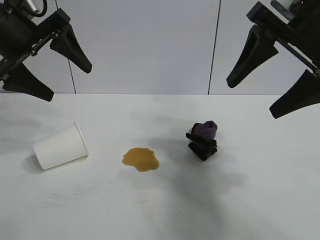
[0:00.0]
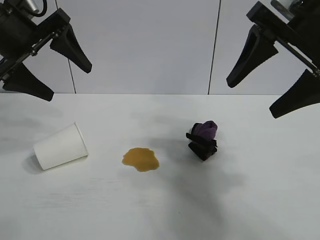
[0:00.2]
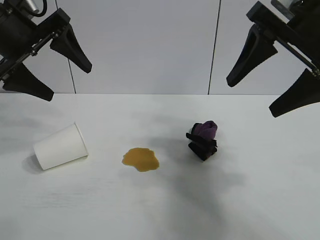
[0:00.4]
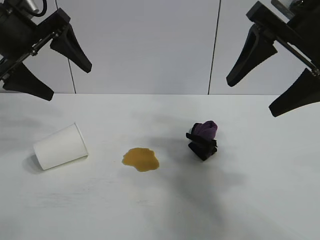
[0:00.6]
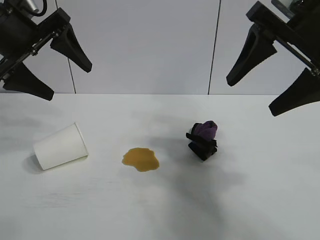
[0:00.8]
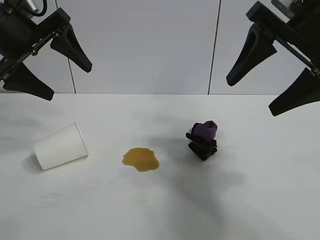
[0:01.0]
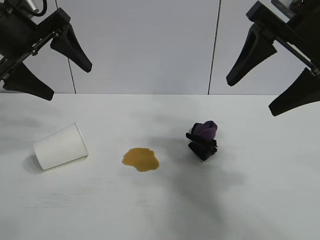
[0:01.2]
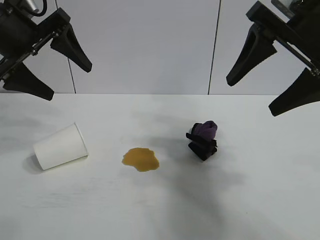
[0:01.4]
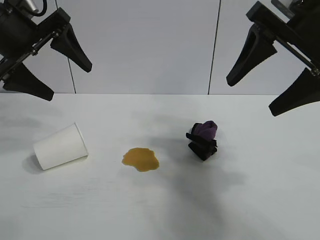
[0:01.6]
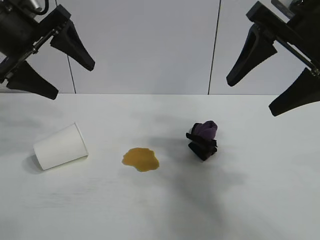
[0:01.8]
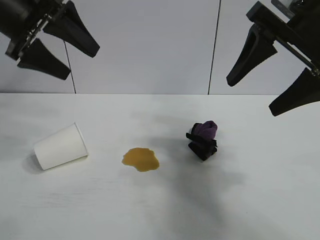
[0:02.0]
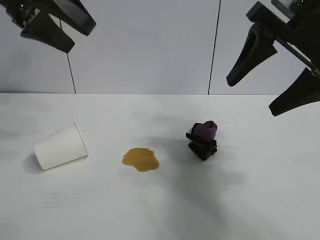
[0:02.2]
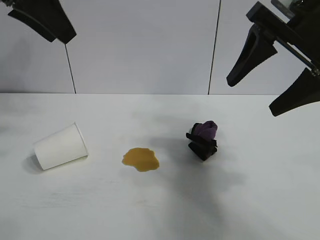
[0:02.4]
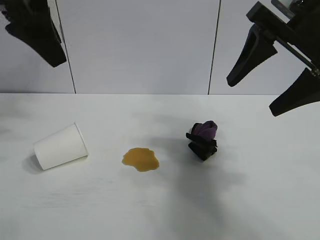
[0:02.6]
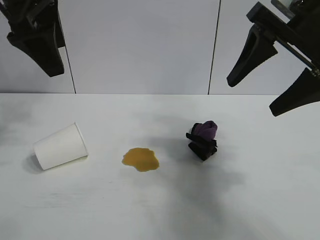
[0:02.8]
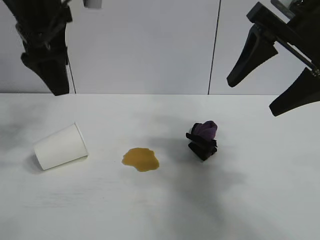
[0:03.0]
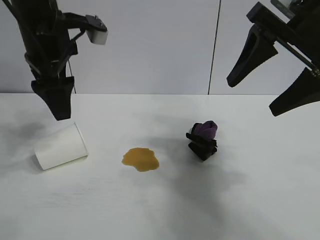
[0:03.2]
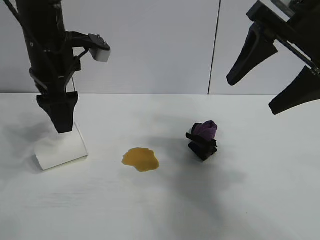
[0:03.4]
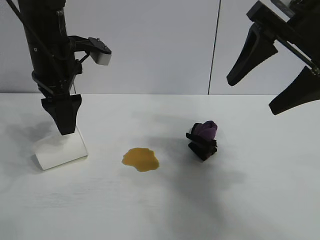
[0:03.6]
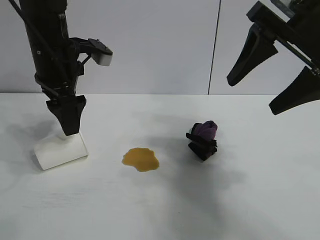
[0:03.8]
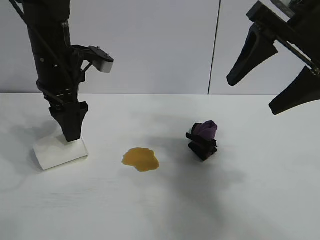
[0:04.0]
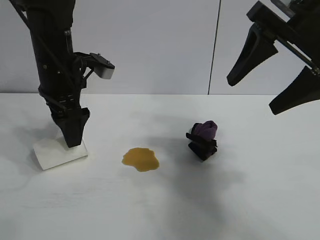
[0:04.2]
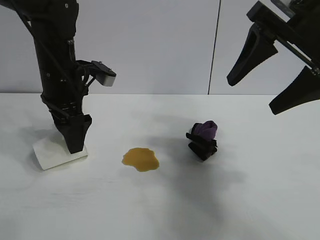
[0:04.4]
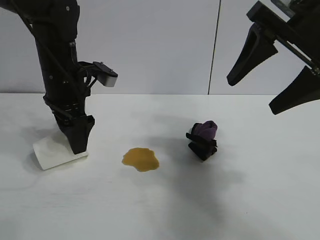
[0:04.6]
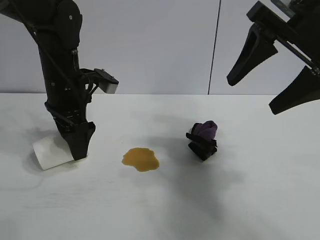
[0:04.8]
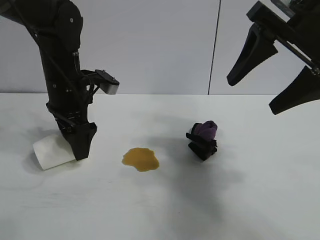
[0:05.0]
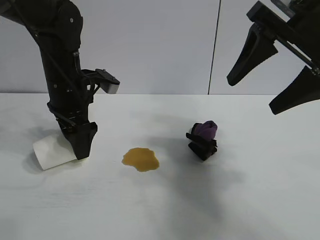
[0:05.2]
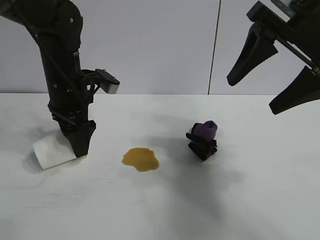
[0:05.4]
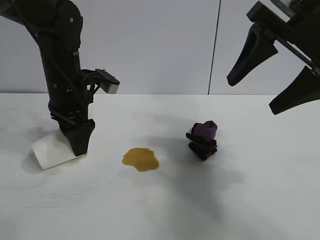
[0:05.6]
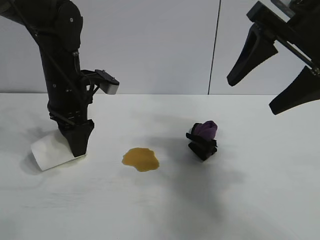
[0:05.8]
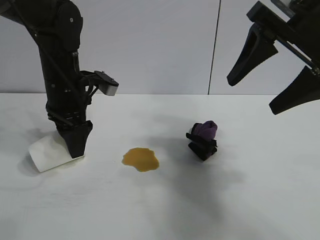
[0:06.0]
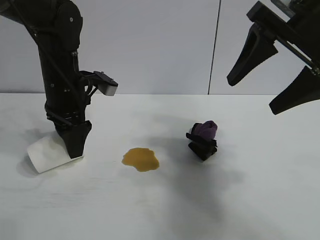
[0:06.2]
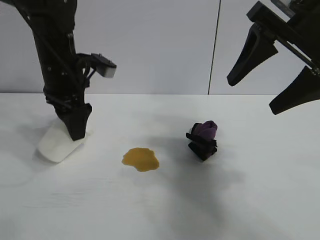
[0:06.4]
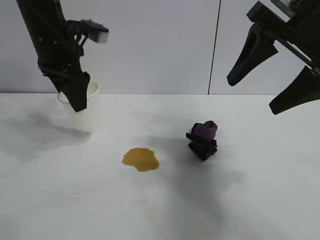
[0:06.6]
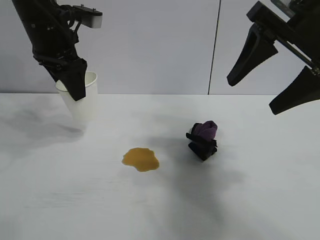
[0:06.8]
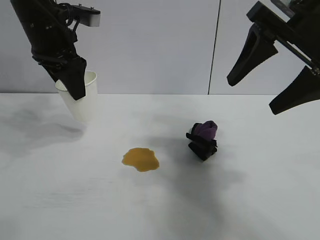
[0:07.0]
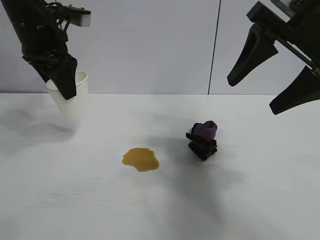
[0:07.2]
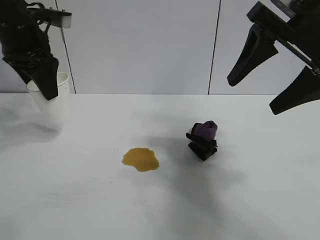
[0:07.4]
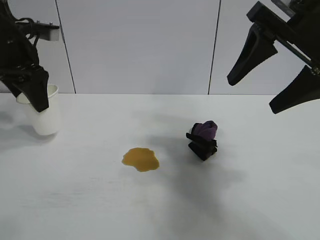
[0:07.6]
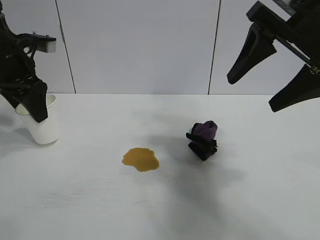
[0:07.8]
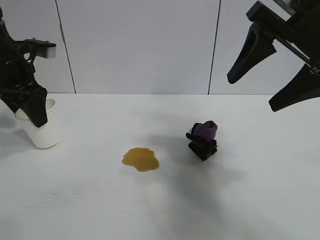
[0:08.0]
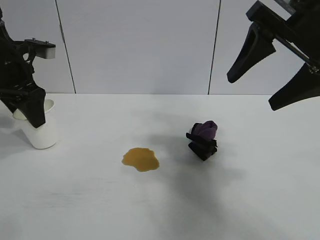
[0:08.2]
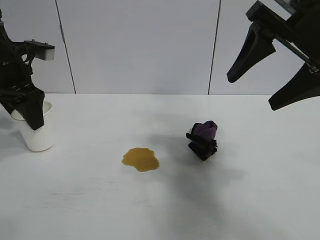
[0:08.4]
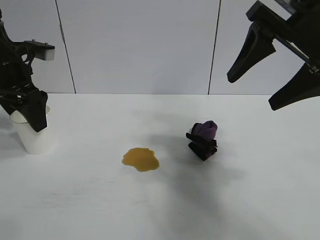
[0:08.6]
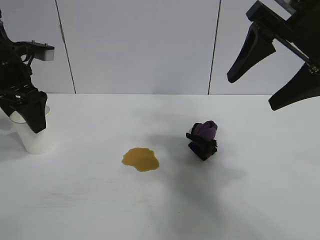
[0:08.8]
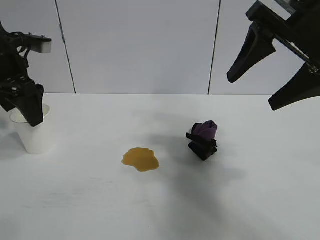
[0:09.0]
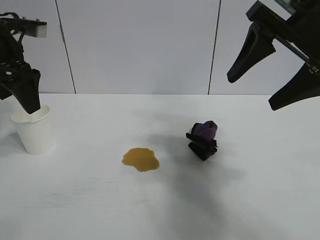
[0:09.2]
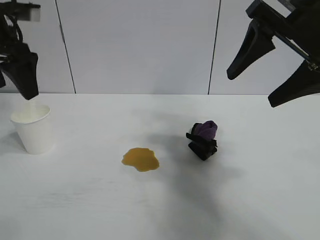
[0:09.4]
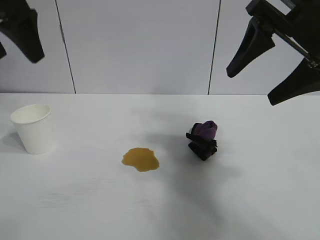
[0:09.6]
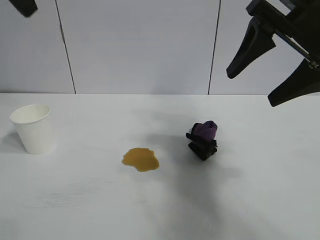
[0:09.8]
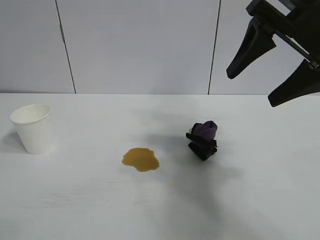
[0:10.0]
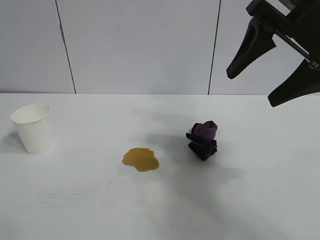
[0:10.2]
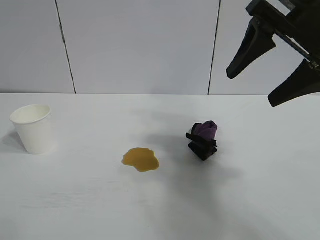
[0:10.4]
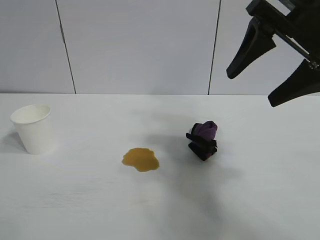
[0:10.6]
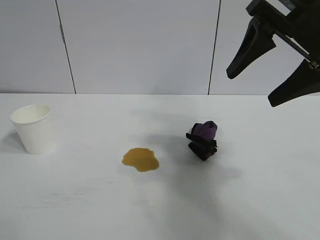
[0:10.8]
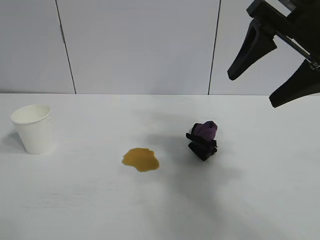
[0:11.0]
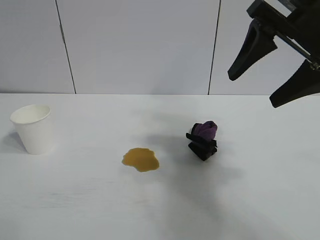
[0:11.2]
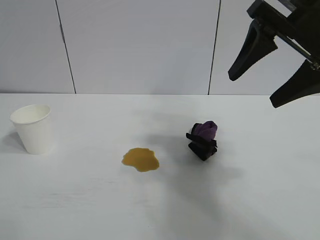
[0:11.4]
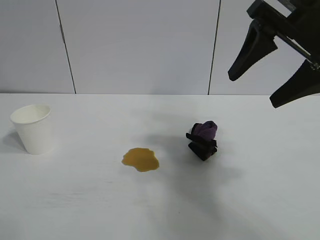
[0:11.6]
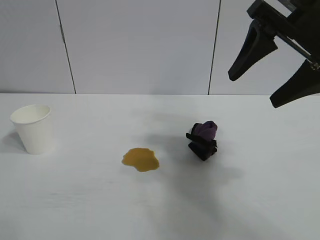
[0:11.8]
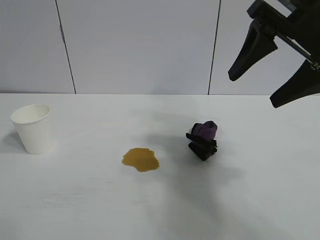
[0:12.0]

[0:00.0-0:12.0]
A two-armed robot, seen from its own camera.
Task of the whole recording: the left gripper pick up the fallen cup and place it upright, the right gripper grasp the black rag and wipe the stain on the table, the right gripper put the black rag back in its original position.
Step, 0:01.8 to 0:06.0: Grasp the paper cup with left gripper.
Step, 0:06.2 to 0:08.4: Stand the paper cup upright with left gripper.

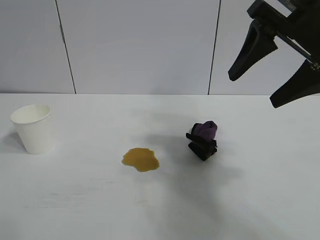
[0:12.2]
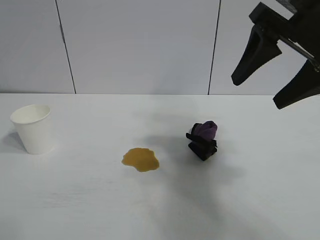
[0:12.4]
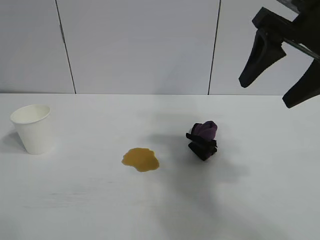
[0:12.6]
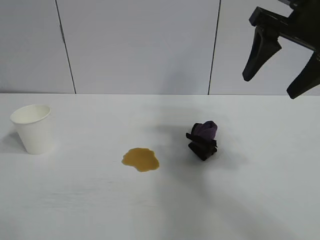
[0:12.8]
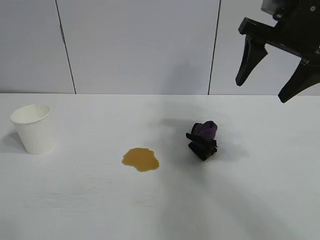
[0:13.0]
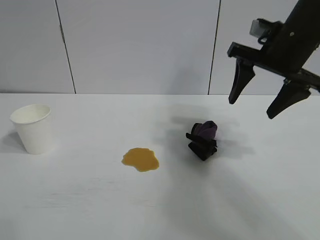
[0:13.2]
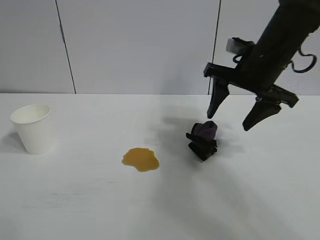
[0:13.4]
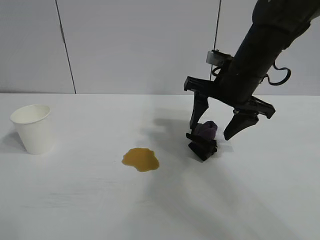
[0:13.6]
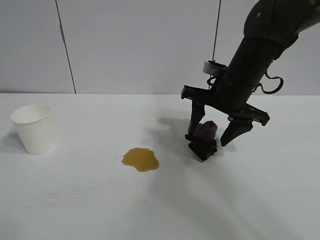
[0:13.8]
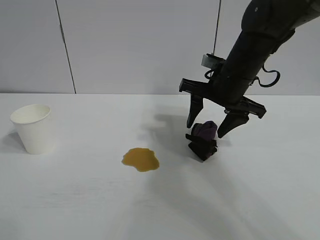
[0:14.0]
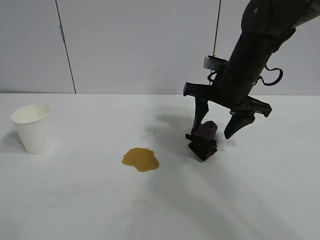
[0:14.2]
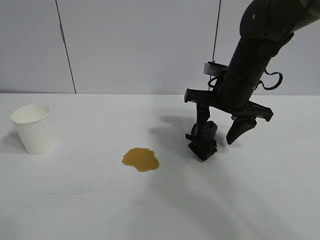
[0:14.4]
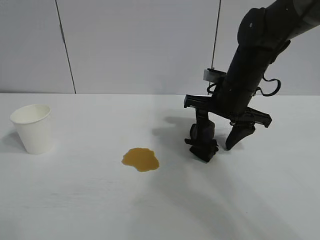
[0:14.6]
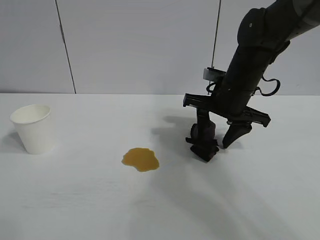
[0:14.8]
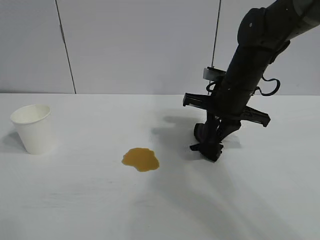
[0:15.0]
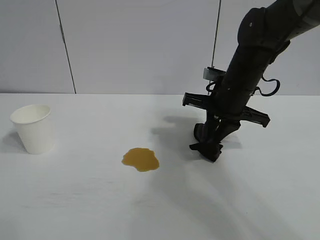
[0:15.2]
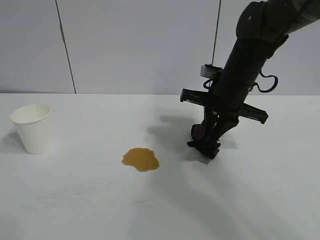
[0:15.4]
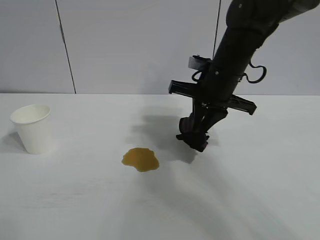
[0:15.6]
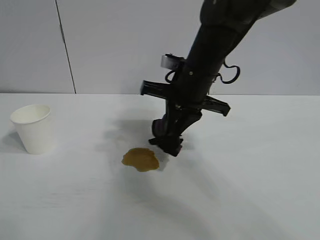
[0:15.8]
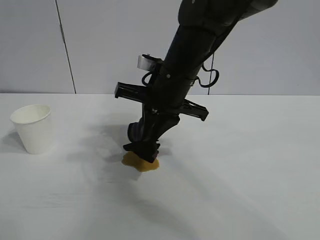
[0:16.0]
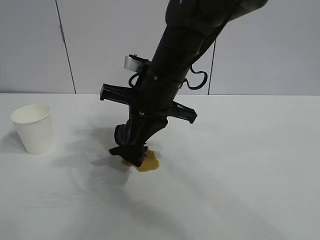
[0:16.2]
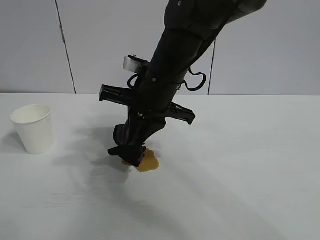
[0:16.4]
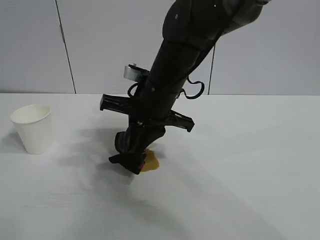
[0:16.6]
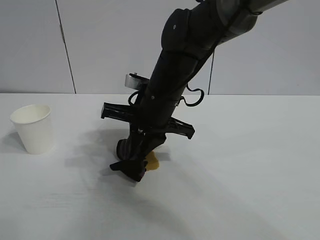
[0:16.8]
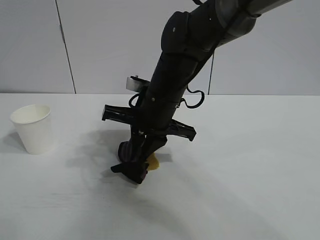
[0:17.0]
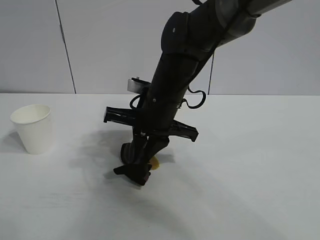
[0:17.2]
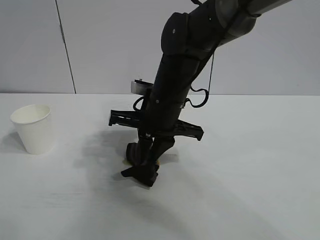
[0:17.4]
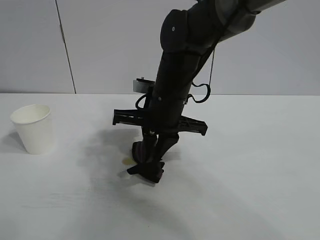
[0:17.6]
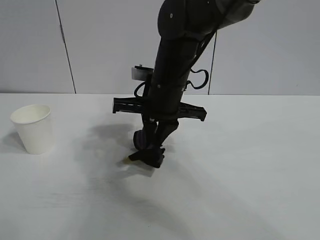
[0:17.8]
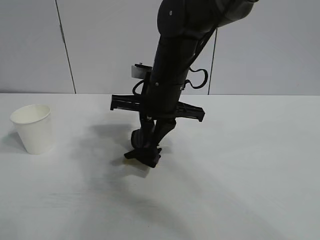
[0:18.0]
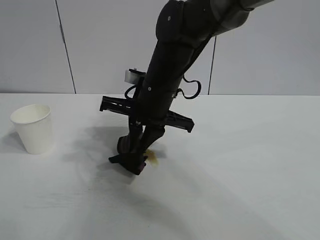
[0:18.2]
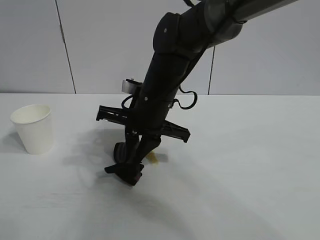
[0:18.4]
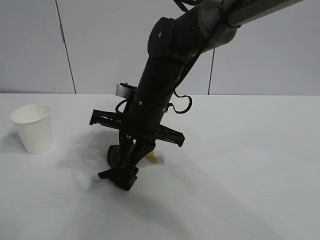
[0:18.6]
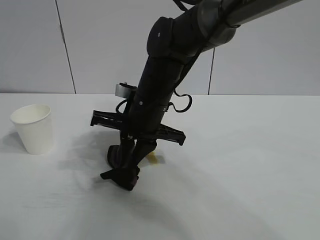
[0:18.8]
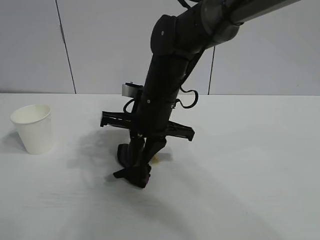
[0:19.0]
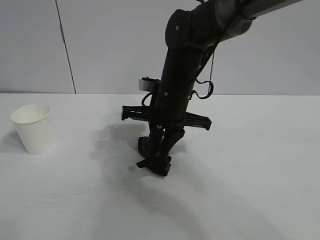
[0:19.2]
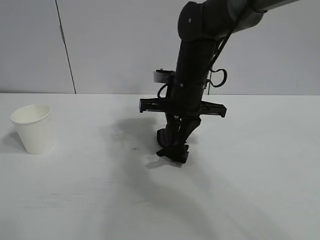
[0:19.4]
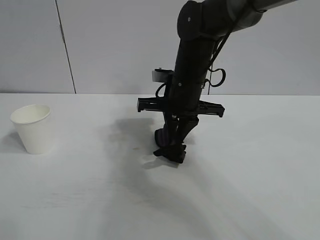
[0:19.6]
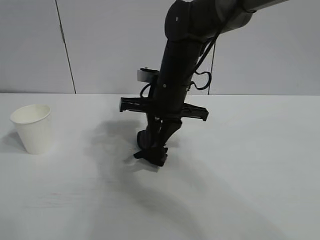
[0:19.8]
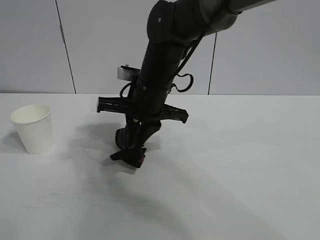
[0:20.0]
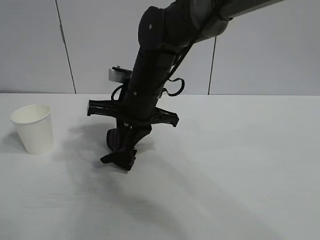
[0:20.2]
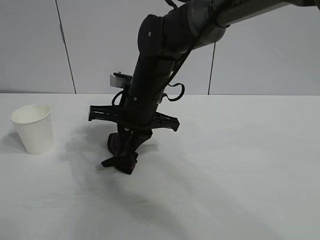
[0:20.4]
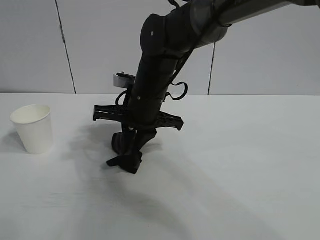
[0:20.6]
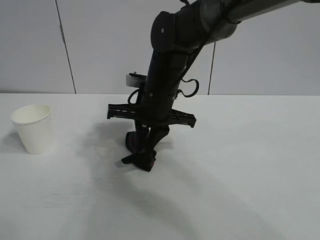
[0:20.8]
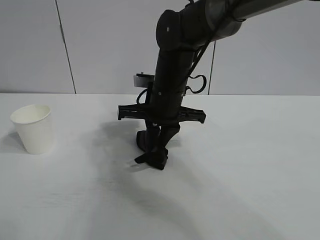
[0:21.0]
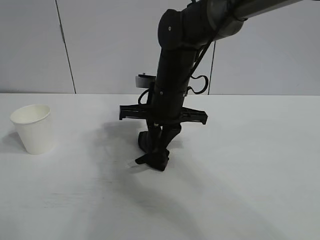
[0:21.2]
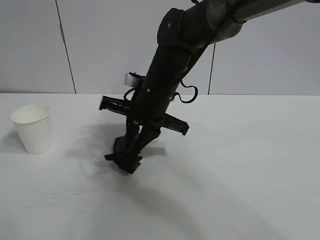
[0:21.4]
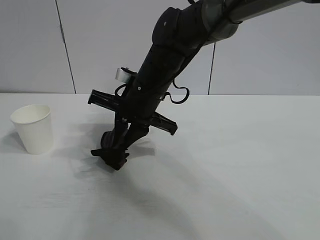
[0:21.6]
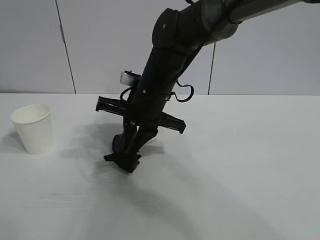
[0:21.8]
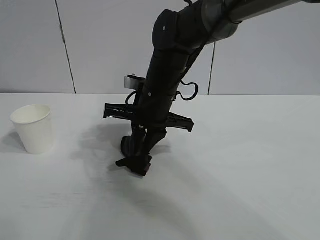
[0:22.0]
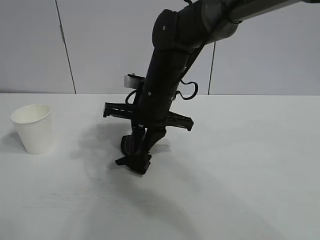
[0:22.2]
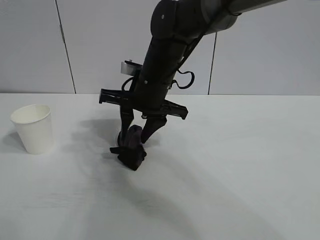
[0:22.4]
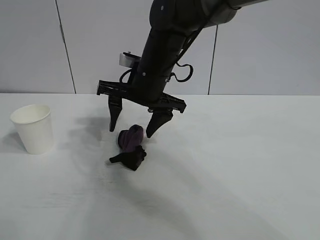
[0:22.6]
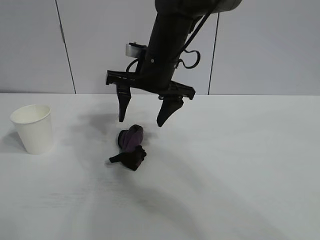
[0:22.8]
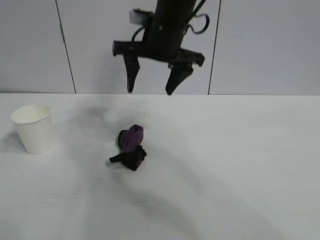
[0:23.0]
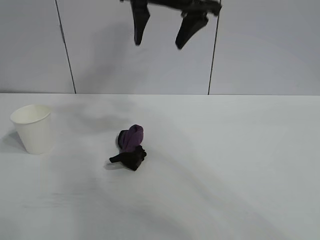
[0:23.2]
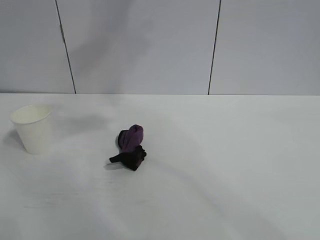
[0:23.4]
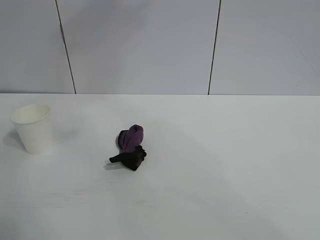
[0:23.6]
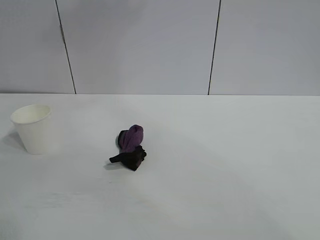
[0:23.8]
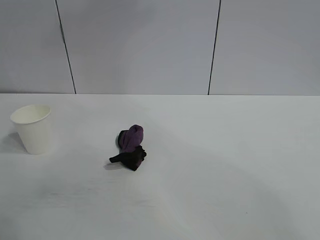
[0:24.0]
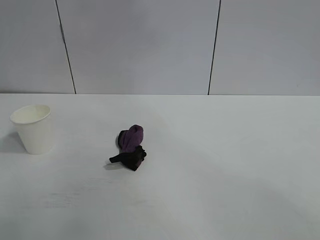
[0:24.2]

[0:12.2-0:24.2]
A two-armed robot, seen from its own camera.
Task of the whole recording: the left gripper pick up the fallen cup and place it upright, the right gripper grasp the black rag and wipe the stain on the table, the right gripper put the black rag back in its original position.
Step, 0:12.2 to 0:15.0: Grasp the rag with right gripper.
Step, 0:15.2 to 0:21.8: Wipe the stains off the table with the rag with right gripper.
